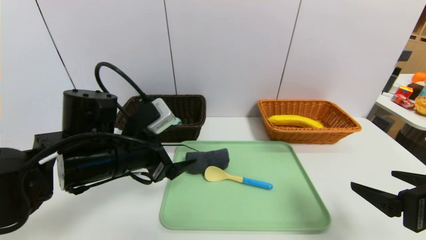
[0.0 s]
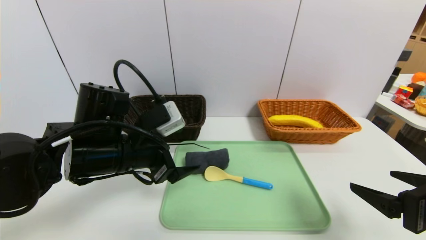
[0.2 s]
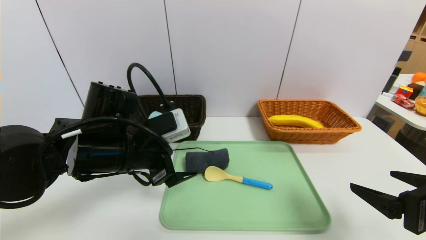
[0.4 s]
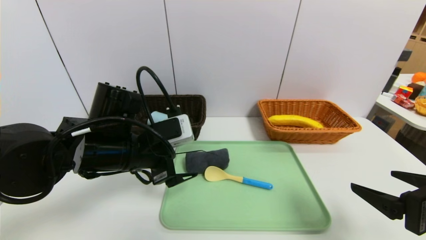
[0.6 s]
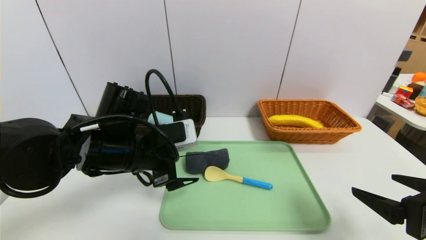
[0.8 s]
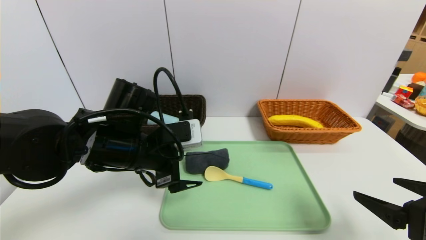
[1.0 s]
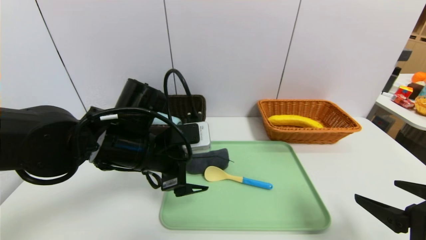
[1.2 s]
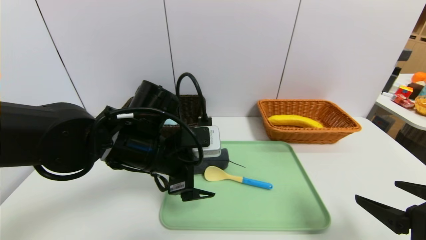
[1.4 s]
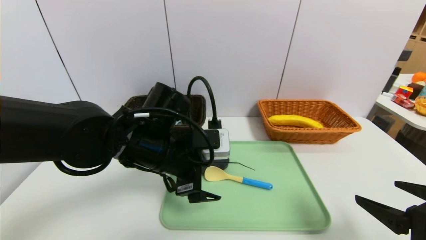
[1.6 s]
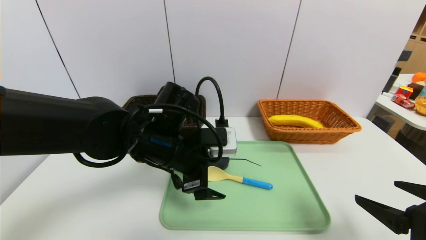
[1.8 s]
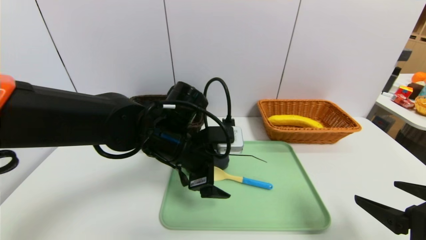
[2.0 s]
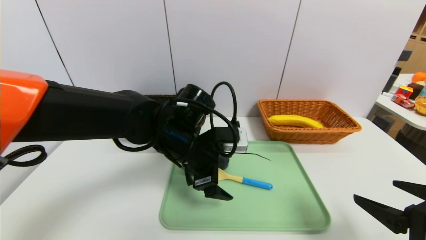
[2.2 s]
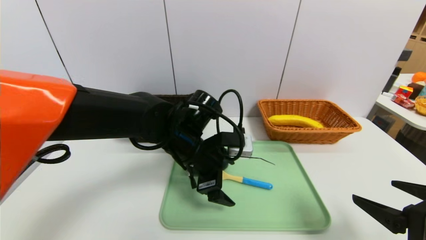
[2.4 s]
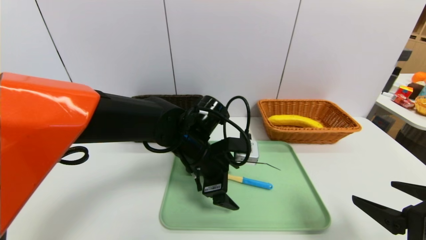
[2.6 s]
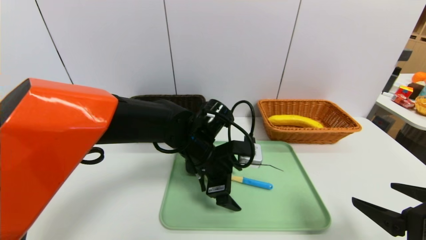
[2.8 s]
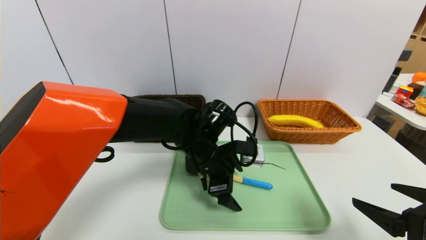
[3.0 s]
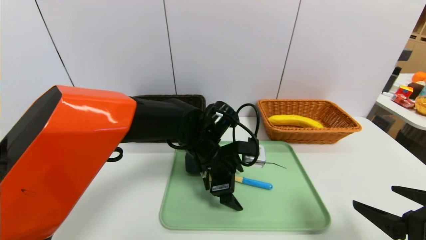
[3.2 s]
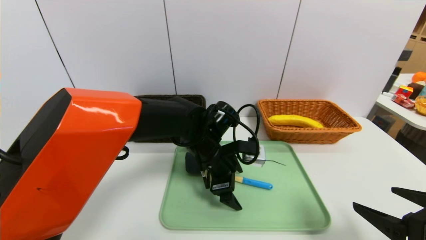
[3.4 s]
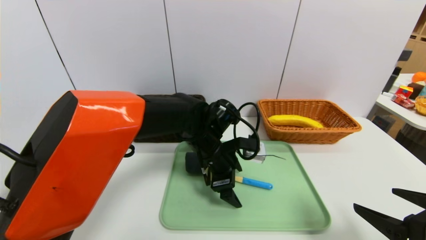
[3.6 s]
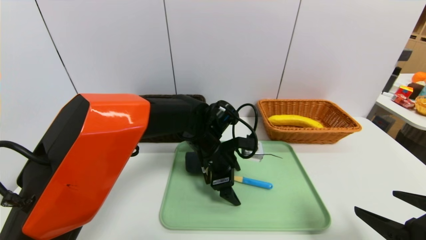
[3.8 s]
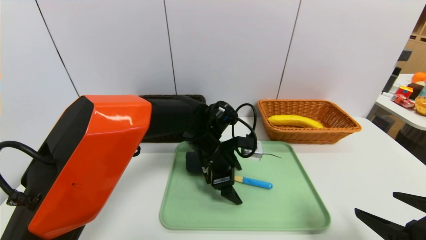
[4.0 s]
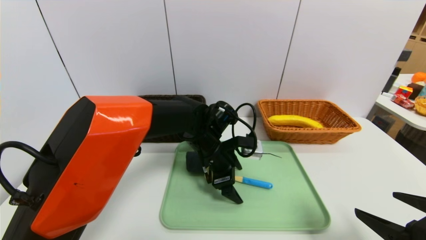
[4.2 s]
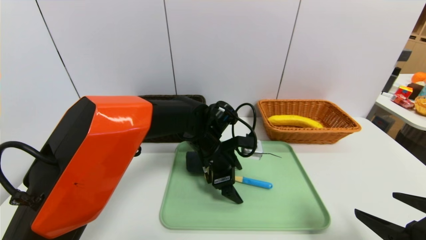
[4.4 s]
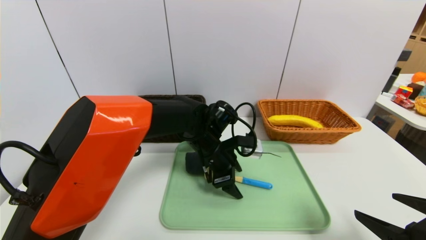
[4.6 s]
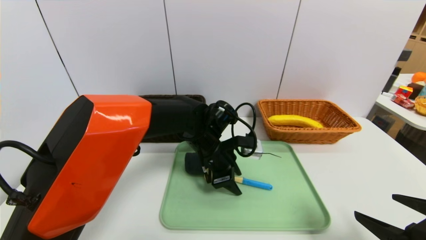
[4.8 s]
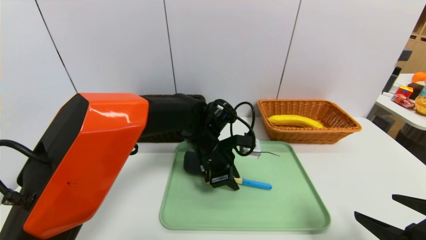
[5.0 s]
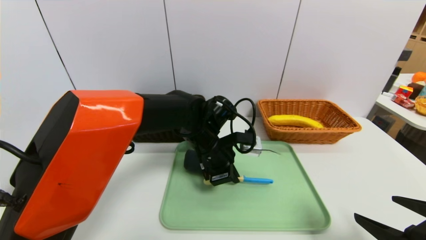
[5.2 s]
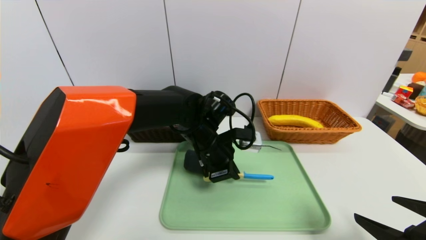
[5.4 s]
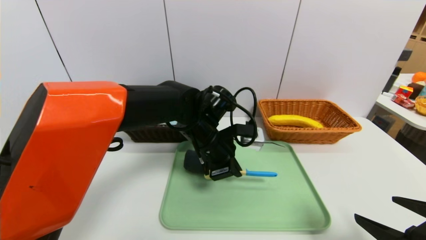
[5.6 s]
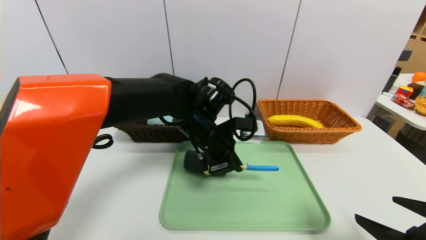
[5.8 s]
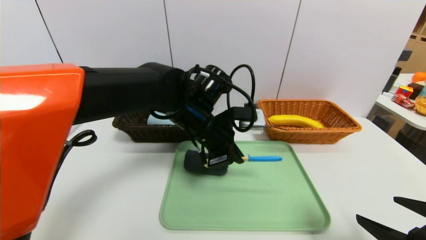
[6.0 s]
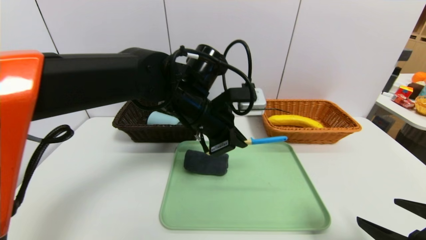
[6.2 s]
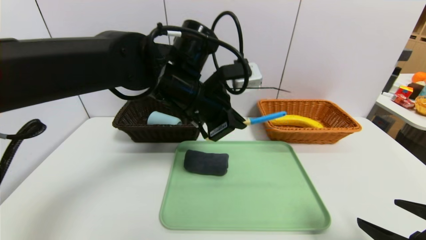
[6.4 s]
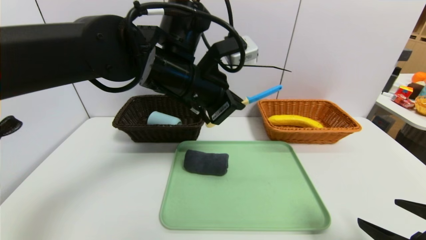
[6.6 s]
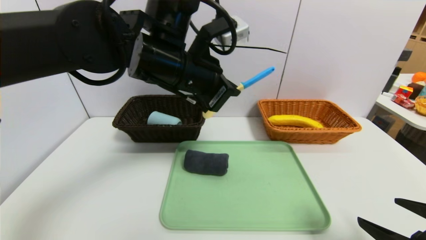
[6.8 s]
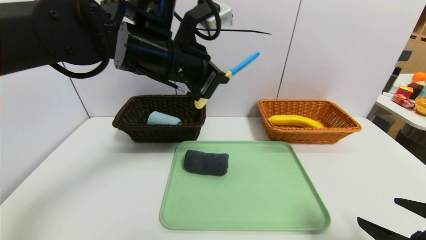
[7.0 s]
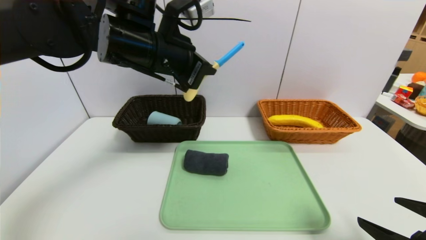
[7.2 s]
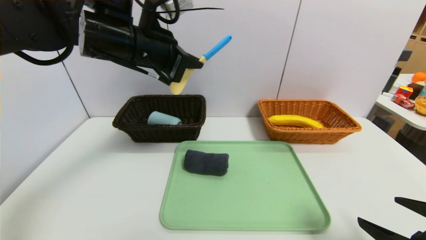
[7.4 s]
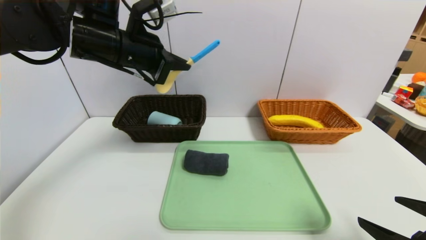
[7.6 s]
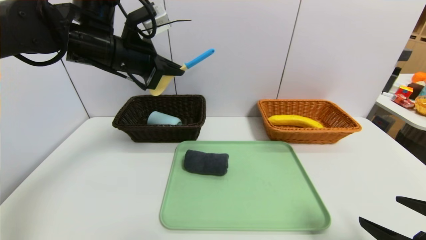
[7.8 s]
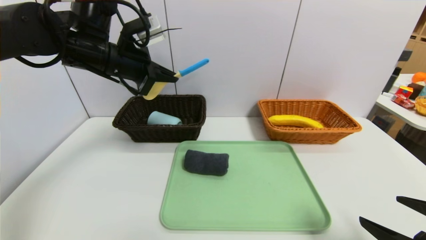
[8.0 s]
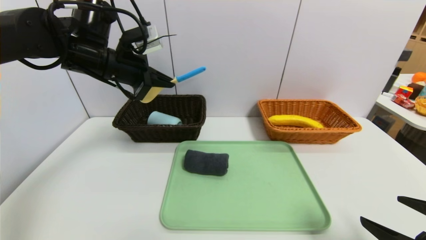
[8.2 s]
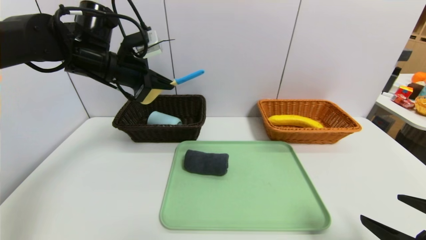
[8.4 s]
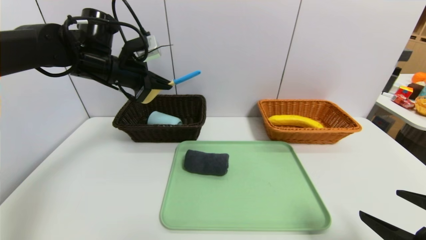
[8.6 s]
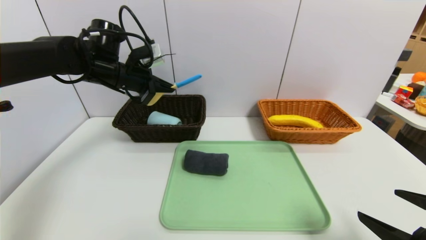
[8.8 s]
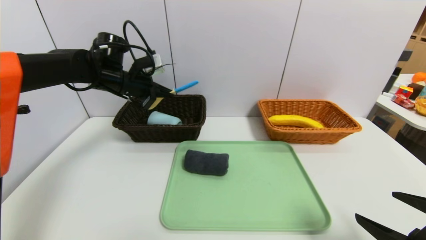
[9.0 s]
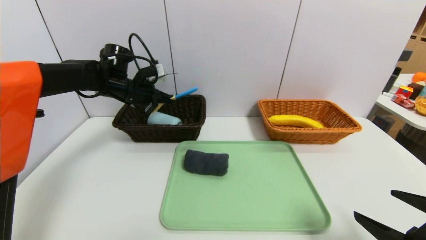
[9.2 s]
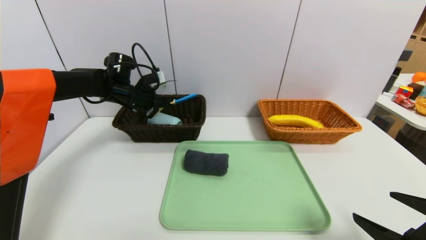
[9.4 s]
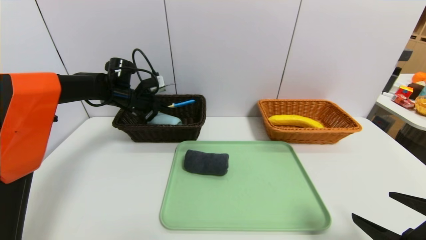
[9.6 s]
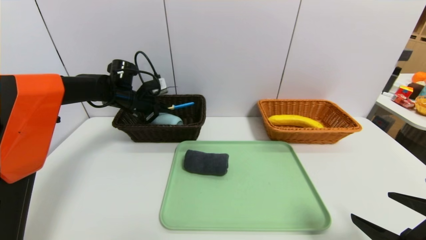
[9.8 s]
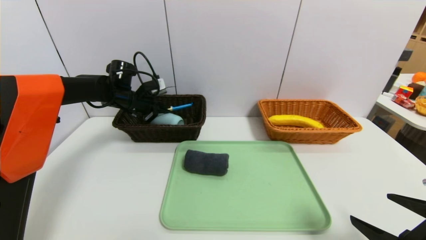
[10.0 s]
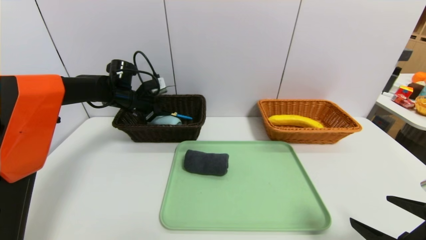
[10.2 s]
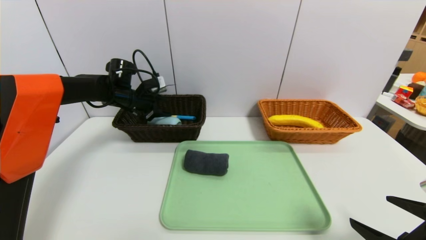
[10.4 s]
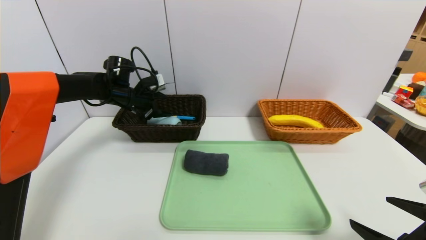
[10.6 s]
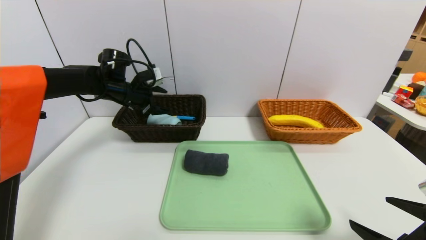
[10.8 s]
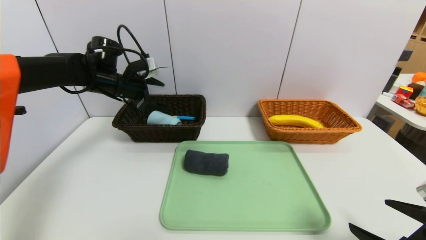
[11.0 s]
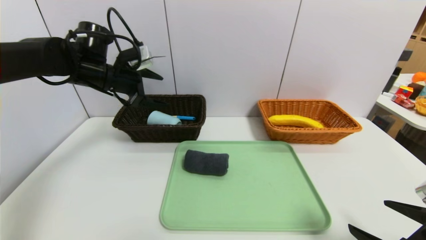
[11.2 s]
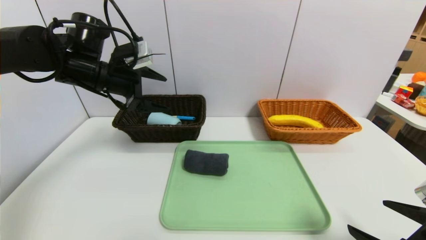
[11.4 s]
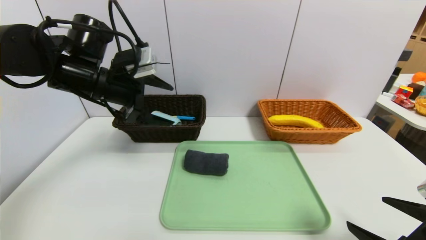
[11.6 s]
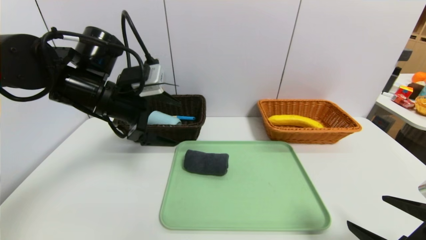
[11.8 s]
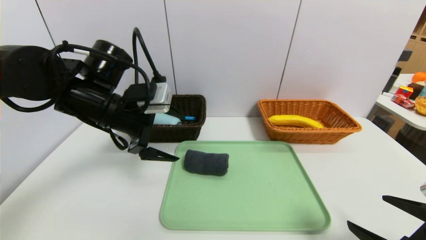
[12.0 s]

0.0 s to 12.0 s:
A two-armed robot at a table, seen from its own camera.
Task of the whole recording: place the food in the right basket with the right gripper, and place the non food items in the left basket with the left gripper.
Step, 0.0 to 11.6 s: Grasp the spoon and put it in the left basket.
0.0 to 1.6 s: The left gripper goes roughly 5 cm to the right.
1.6 to 3.0 s: The left gripper goes about 10 cm to the right and forward.
4.4 to 6.0 s: The left gripper is displaced upward by roughly 10 cm, and closes.
6.0 to 7.6 s: The left gripper moves to the left and upward, roughly 20 cm.
7.6 to 9.0 s: The left gripper is displaced forward, downward and to the left by roughly 15 cm.
9.0 to 10.4 s: The left gripper goes some 5 cm downward, and opens up.
10.4 to 12.0 s: The left gripper shifts approximately 20 cm backward, and opens up.

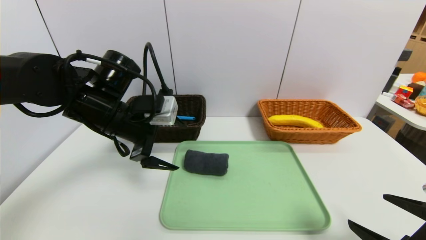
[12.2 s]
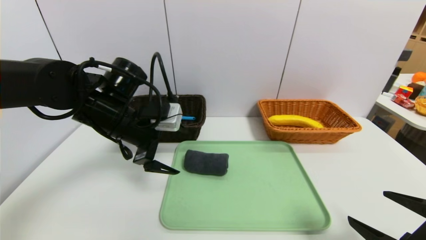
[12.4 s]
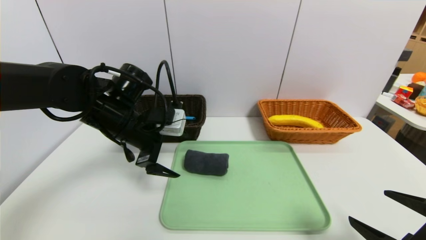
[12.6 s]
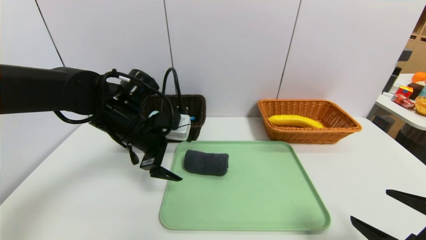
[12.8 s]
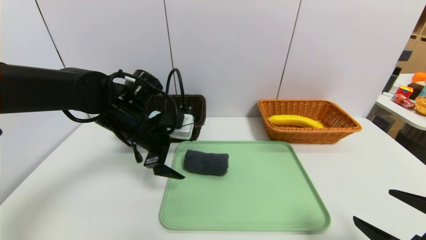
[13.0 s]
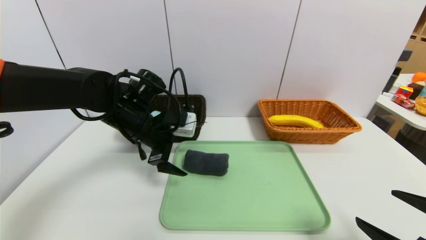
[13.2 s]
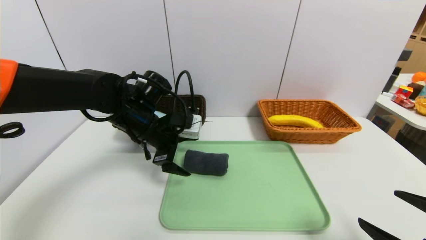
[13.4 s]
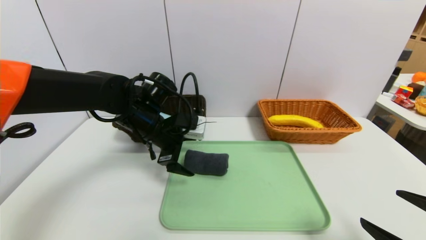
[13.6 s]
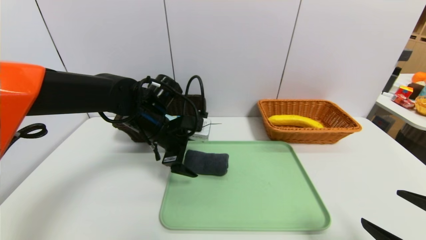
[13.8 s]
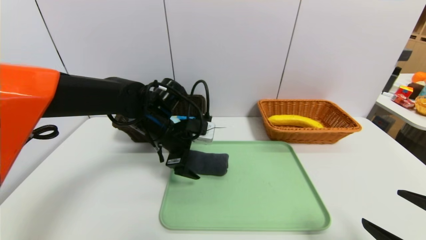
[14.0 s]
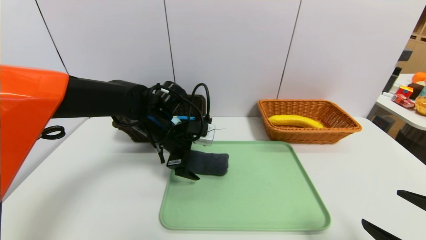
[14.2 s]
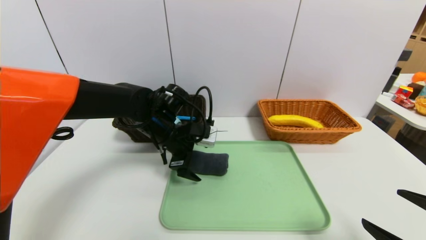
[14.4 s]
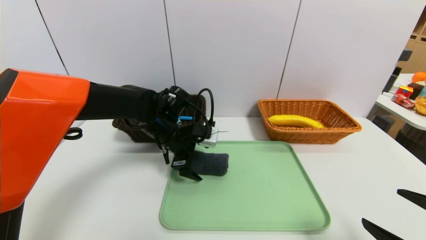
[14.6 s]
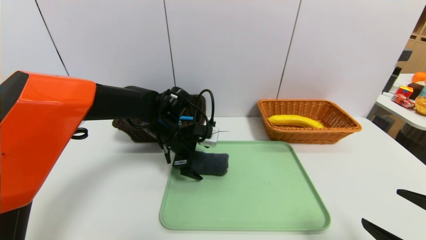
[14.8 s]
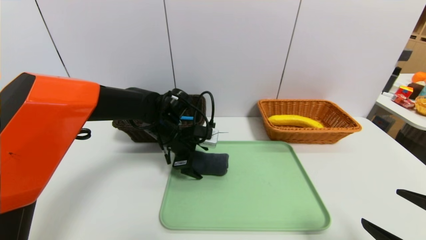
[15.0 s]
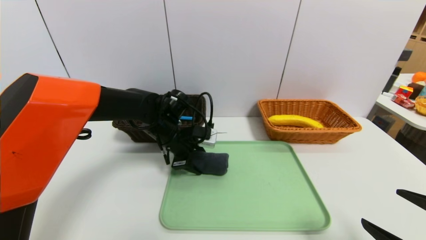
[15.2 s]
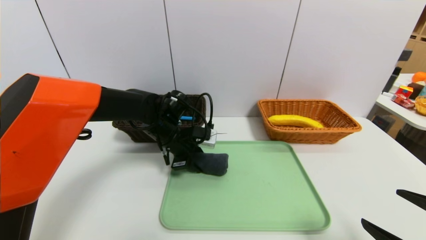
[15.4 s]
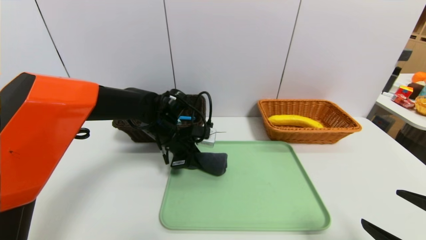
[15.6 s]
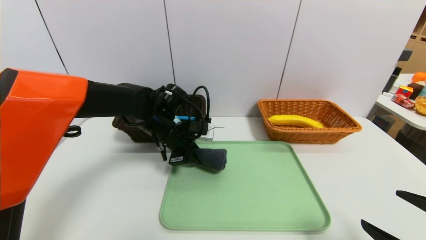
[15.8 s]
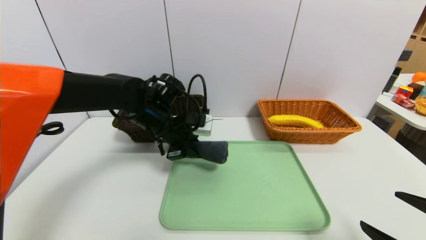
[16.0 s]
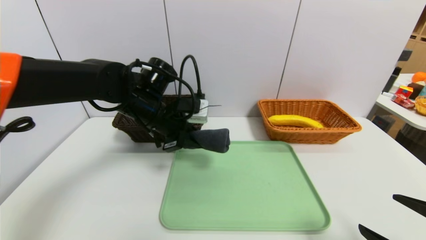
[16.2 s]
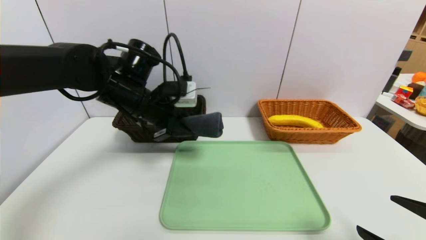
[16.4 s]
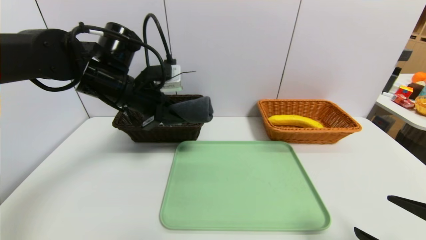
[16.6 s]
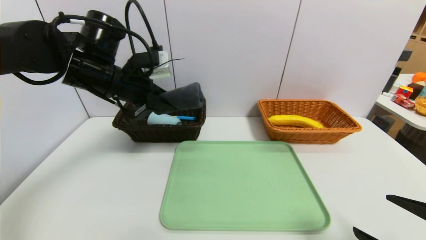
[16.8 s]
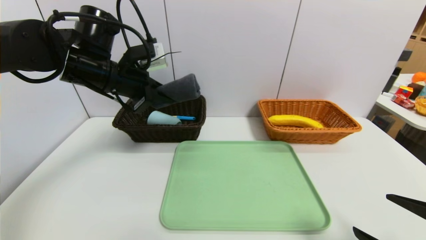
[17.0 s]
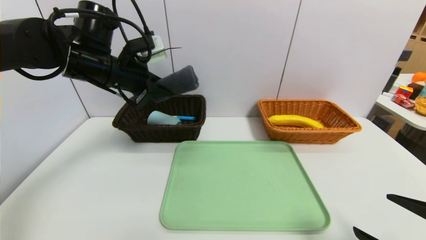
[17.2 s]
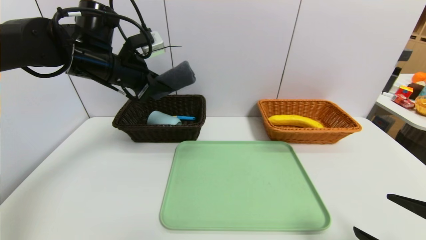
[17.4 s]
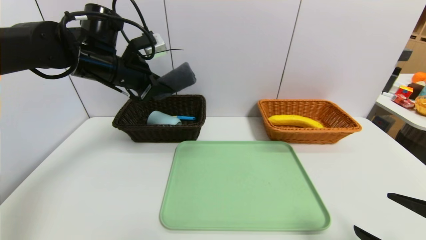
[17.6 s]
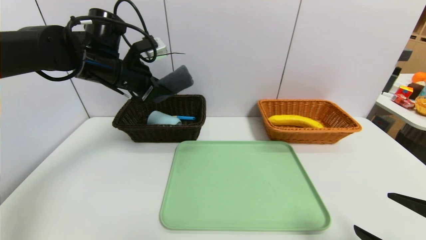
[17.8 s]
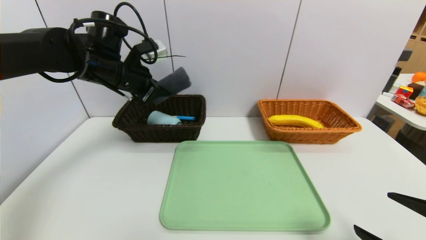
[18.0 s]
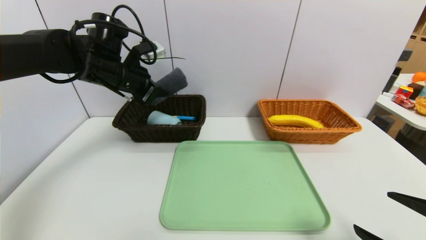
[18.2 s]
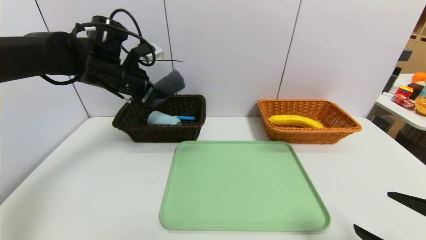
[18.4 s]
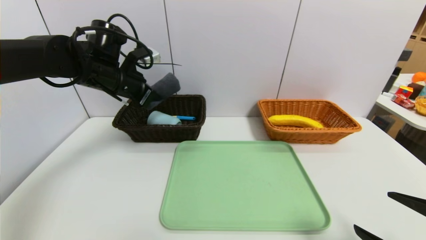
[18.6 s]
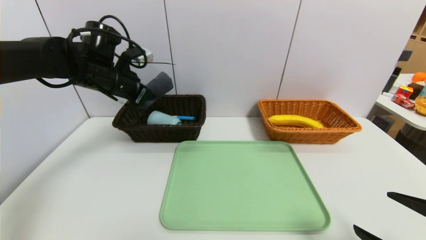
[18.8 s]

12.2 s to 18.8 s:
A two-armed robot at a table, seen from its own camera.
Task of the whole recording: place the food in the right basket with the right gripper, and place the non food items in the left basket with the left gripper.
12.2 to 13.8 s: The left gripper heads to the right, covering about 5 cm.
13.8 to 15.4 s: The left gripper moves about 5 cm, and closes.
15.4 to 17.2 s: The left gripper goes approximately 20 cm upward and to the left.
17.2 to 18.8 s: The left gripper moves some 5 cm.
